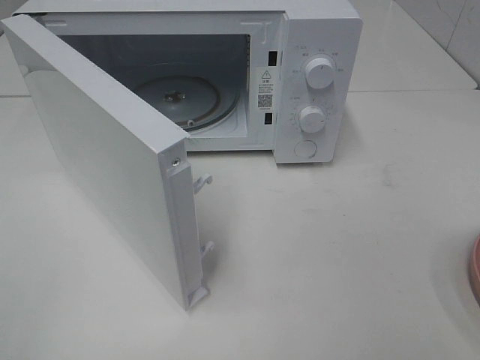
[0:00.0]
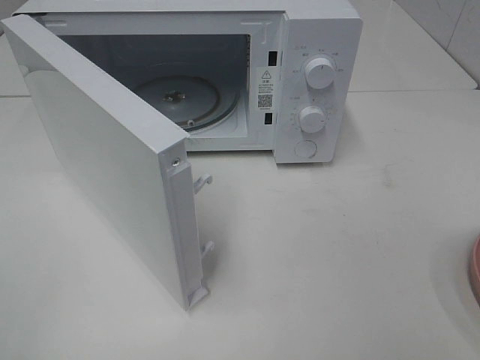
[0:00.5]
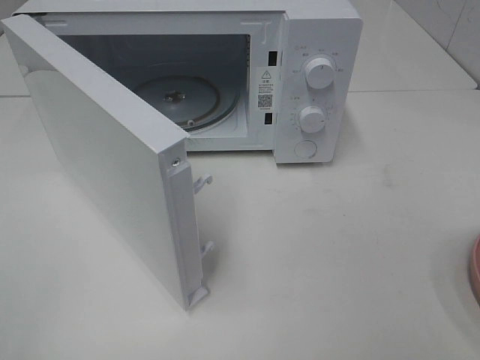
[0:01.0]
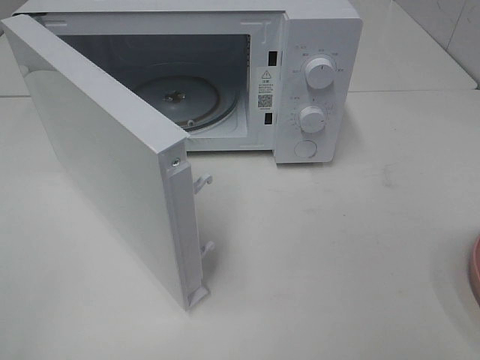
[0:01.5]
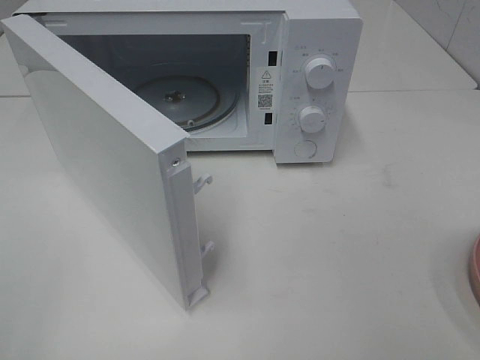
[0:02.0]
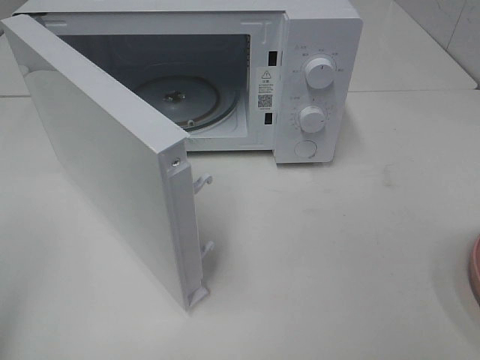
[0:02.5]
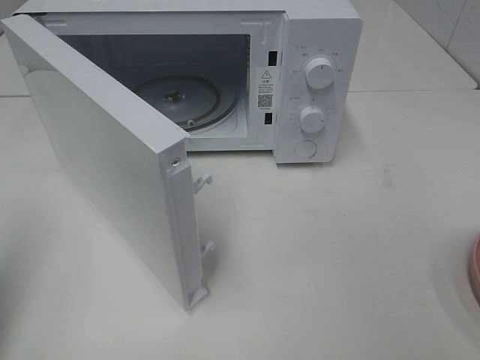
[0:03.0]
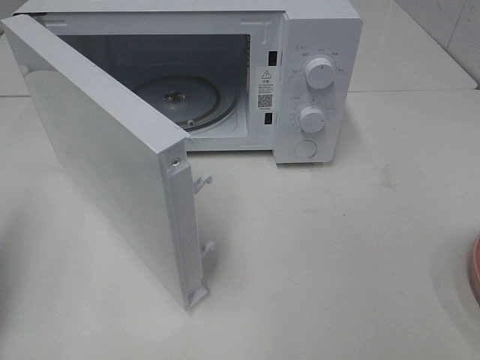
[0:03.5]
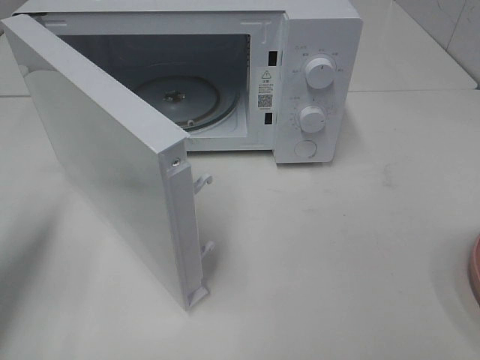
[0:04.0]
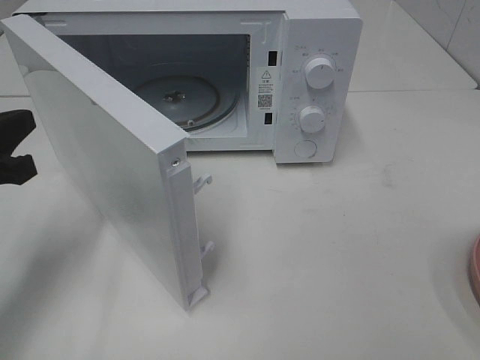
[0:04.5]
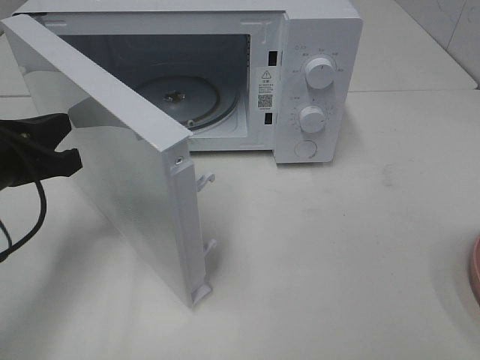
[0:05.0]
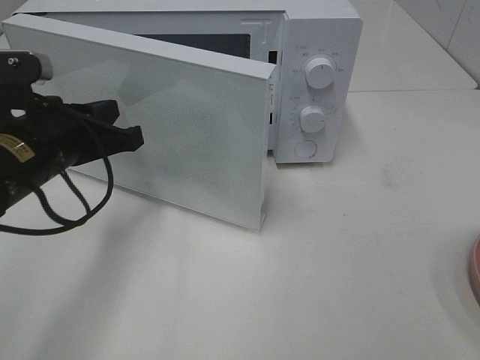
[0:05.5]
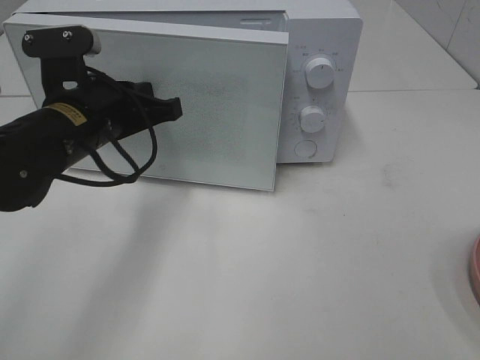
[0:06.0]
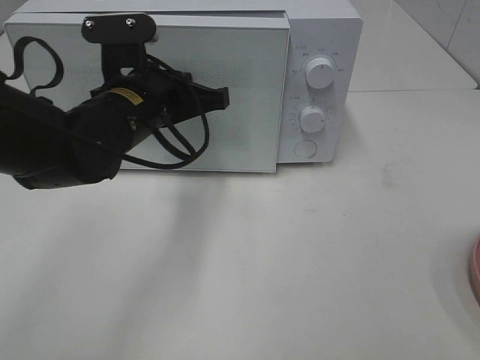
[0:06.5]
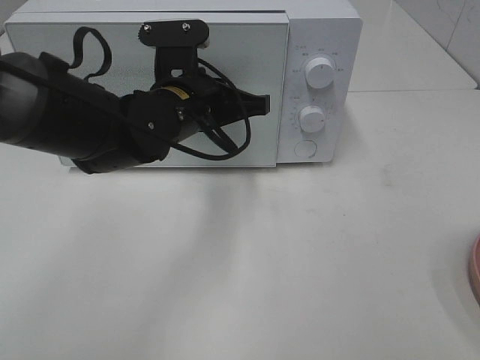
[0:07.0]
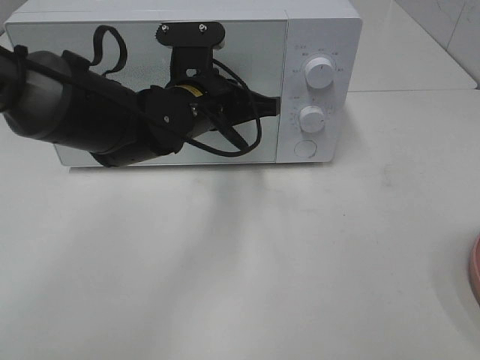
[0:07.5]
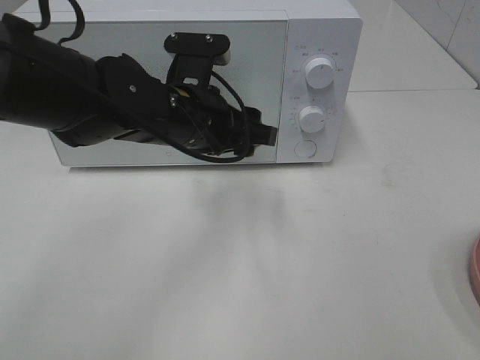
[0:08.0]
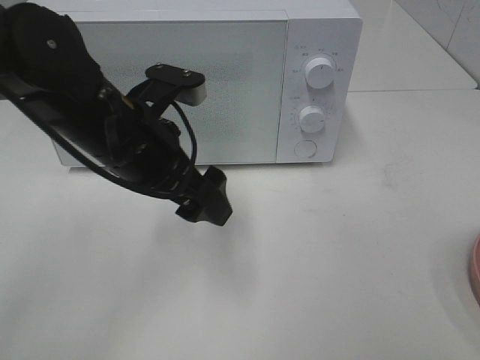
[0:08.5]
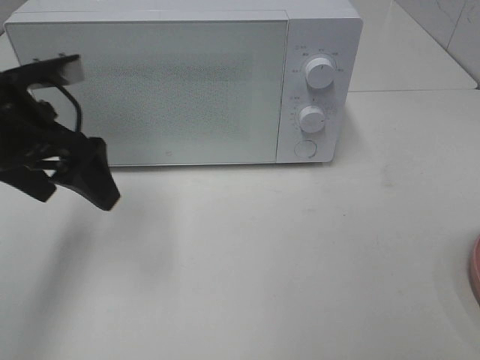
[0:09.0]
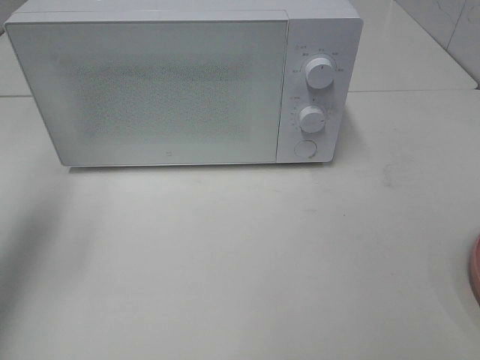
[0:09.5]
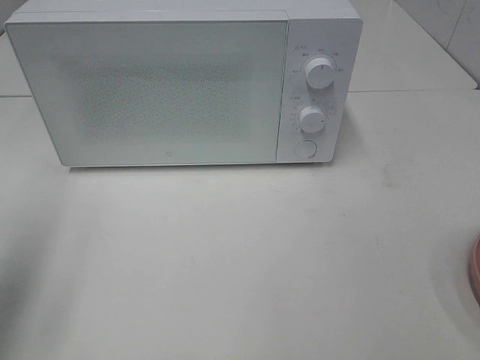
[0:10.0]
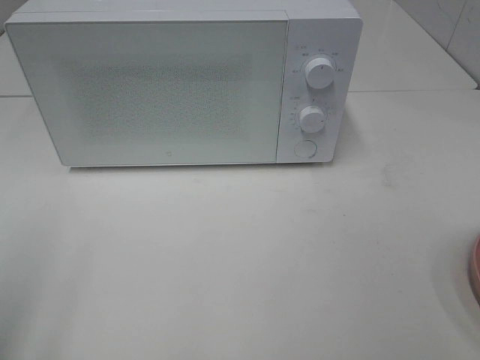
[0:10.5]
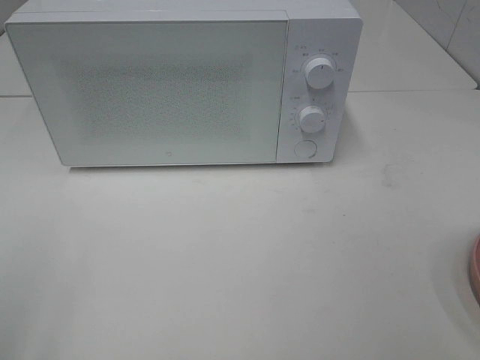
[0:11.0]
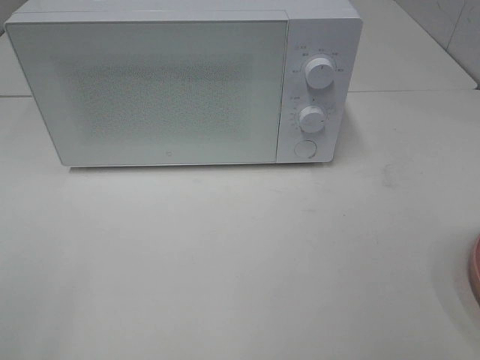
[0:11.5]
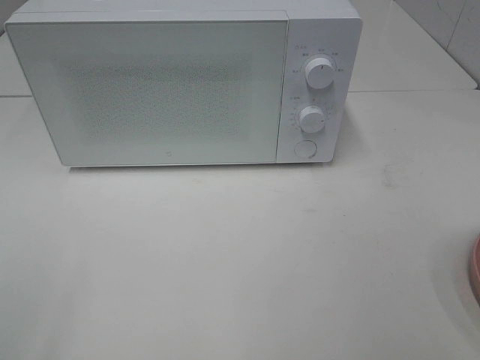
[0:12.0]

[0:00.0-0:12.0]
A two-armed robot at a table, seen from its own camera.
Task of the whole recording: Heat the burger.
Step, 0:00.0 to 0:07.5: Left hand: close the microwave door.
0:02.0 to 0:04.0: The left gripper goes roughly 20 cm forward and downward, and closes up.
0:04.0 to 0:06.0: The left gripper is displaced to the right and forward by approximately 20 cm.
0:06.0 to 0:08.0: The left gripper is displaced to the right by some 10 cm, and opens its fingers.
0:08.0 to 0:10.0: The left gripper moves to the left, backward and upward, about 35 cm.
0:10.0 to 0:12.0: The left gripper travels backward by about 15 cm.

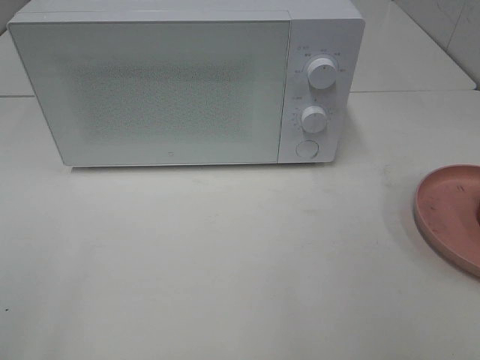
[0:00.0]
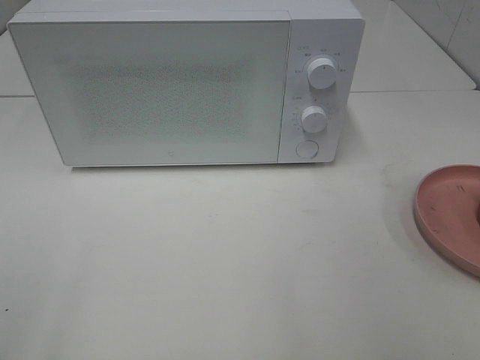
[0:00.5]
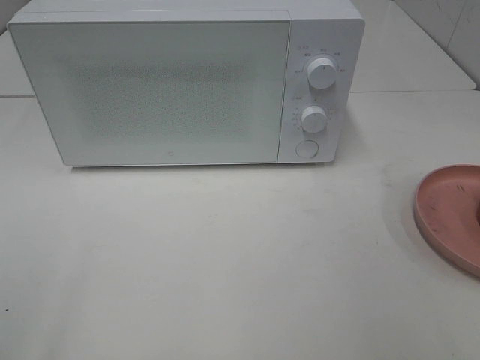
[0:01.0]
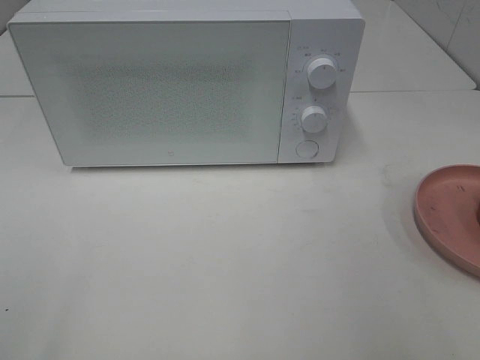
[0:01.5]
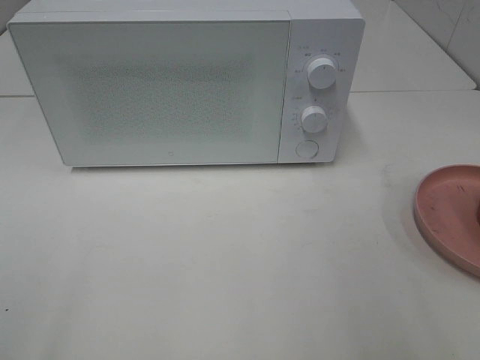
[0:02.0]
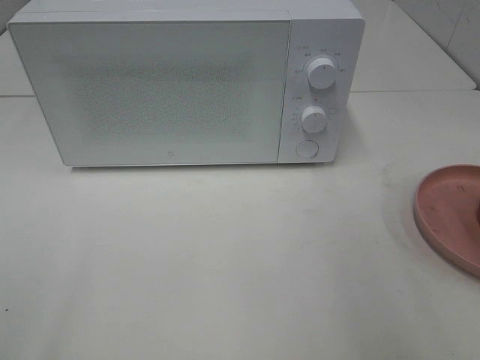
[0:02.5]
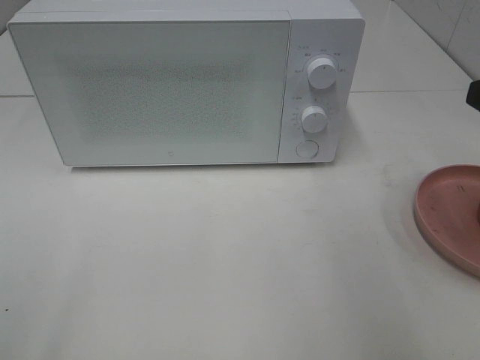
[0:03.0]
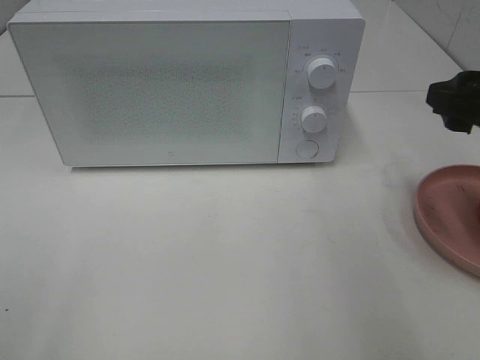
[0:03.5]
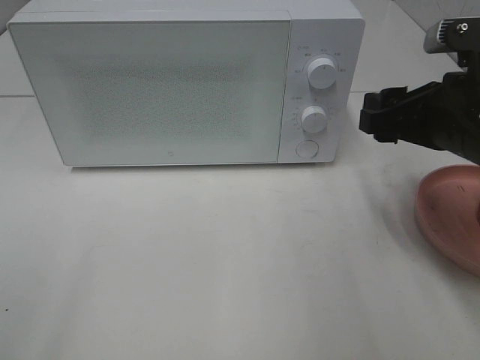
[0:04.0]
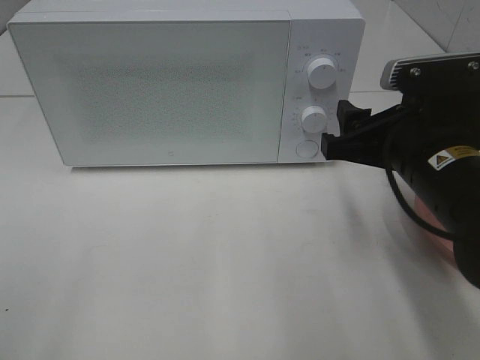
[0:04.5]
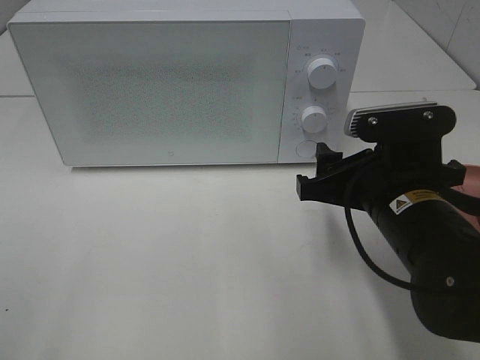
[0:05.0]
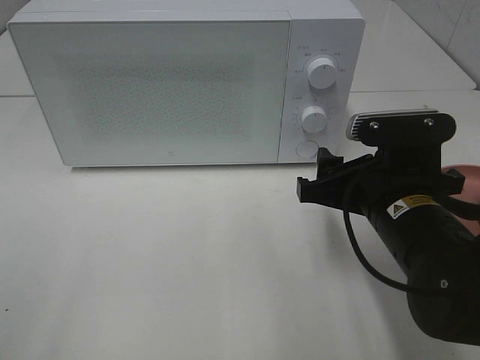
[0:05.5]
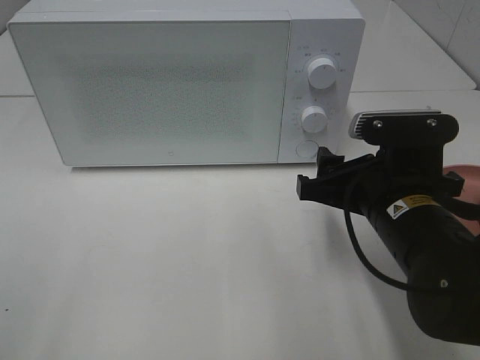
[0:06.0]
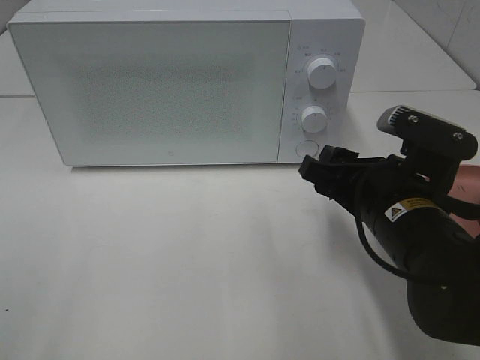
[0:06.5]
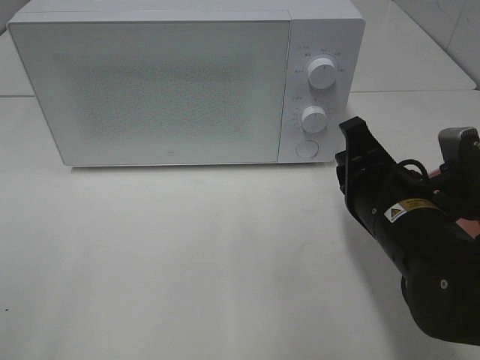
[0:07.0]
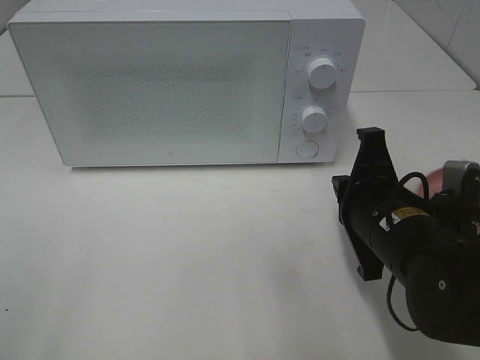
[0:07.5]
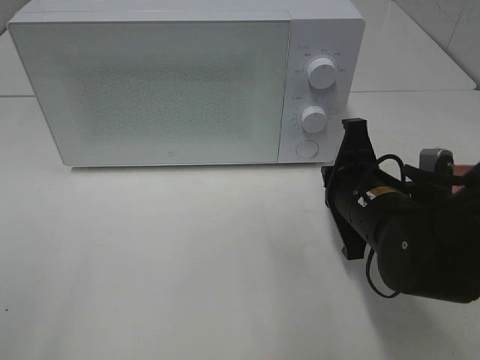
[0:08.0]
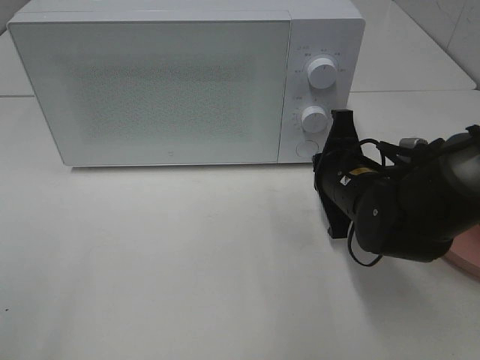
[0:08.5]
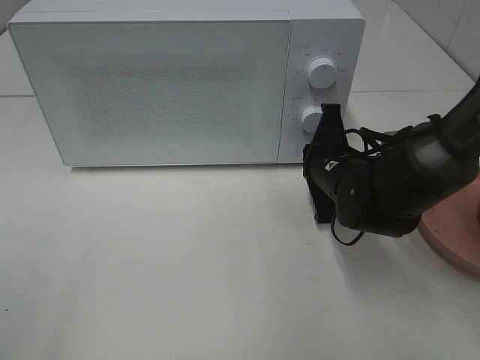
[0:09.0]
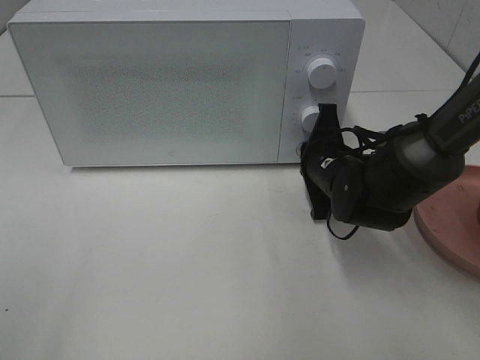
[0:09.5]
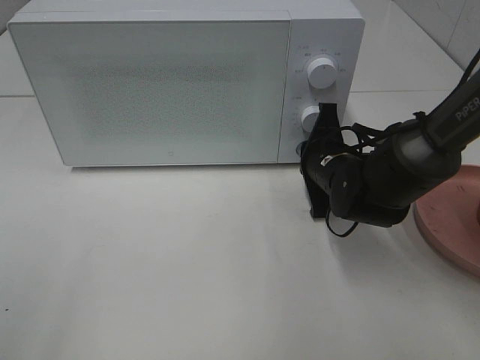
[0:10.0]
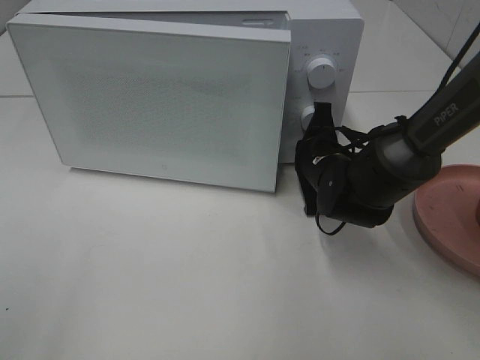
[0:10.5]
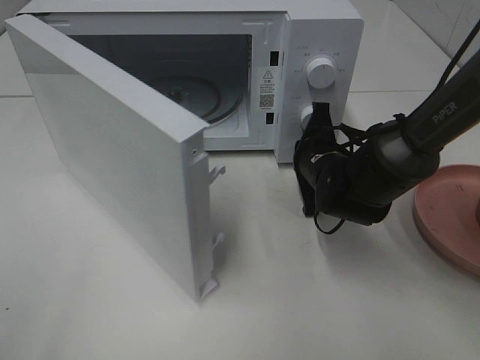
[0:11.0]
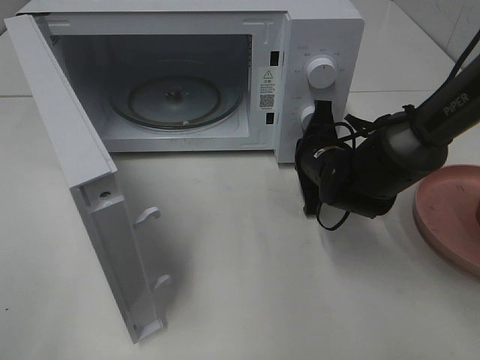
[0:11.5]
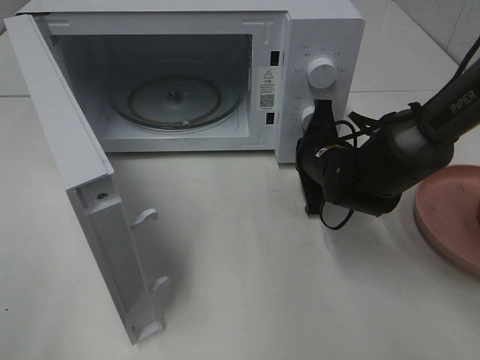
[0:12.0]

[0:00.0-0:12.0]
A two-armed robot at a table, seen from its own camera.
Task of the whole recording: Heat the burger.
0:02.0 to 0:04.0: The right gripper travels forward, downward and to the left by approximately 20 cm.
0:04.0 to 0:06.0: The right gripper goes about 10 cm downward and to the left.
0:06.0 to 0:08.0: The right gripper closes up.
0:08.0 to 0:10.0: The right gripper heads forward, covering some 10 cm.

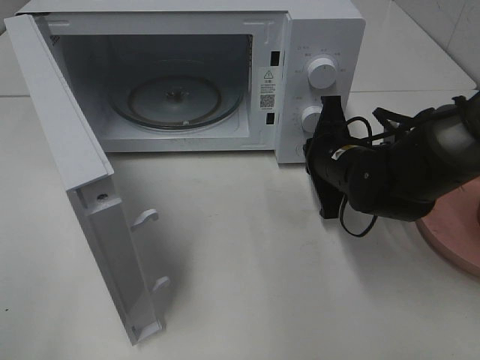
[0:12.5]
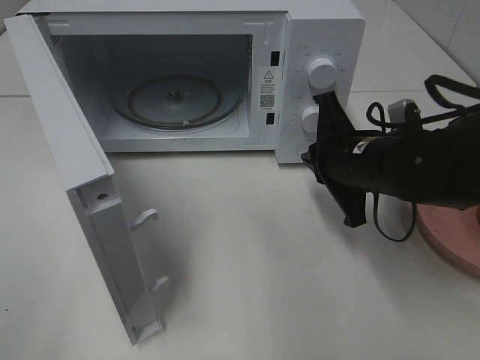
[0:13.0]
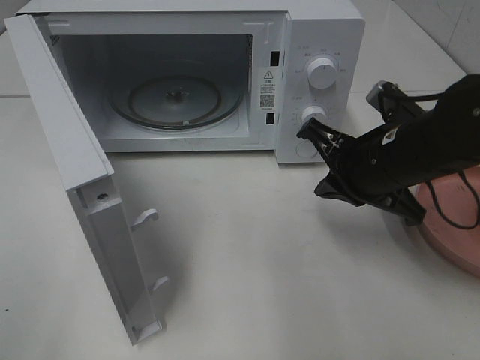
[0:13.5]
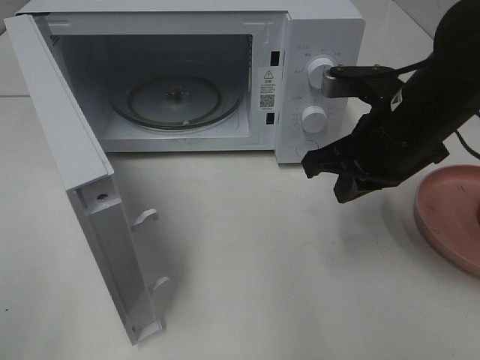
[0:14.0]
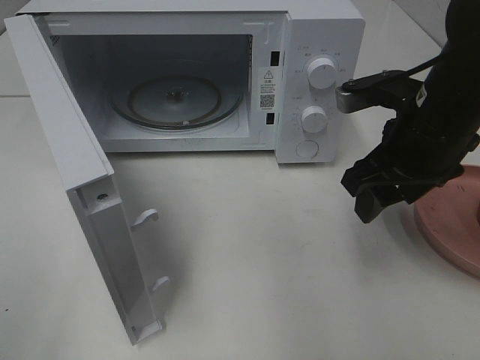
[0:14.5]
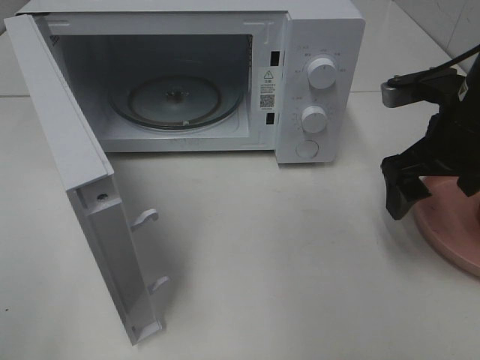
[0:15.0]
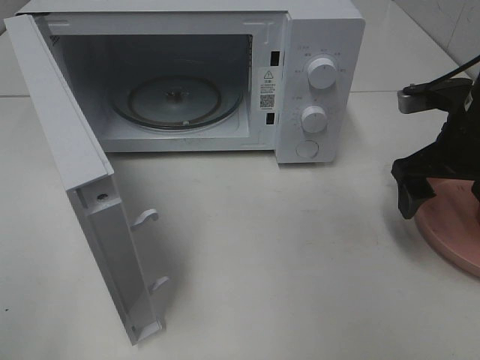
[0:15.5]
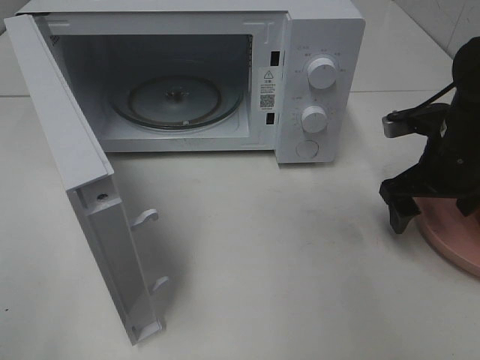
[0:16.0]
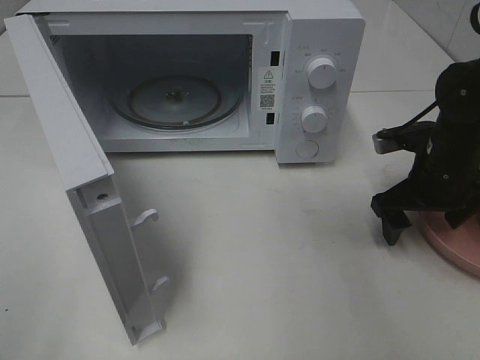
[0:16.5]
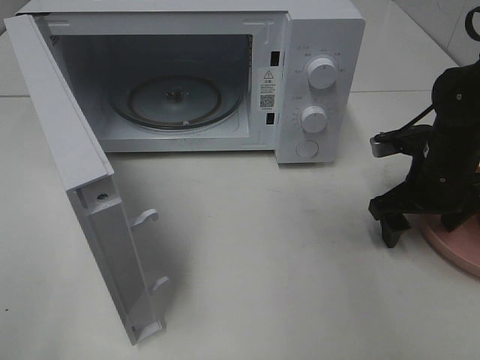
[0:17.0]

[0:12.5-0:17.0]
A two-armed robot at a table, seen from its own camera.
Task of the whole recording: Heat the burger.
0:12.5 to 0:14.5: The right gripper travels upward and backward by about 10 cm, and opens.
0:14.5 to 0:17.0: The right gripper is displaced downward and to the right by some 10 cm.
